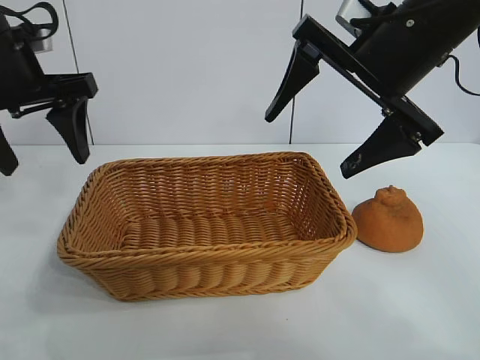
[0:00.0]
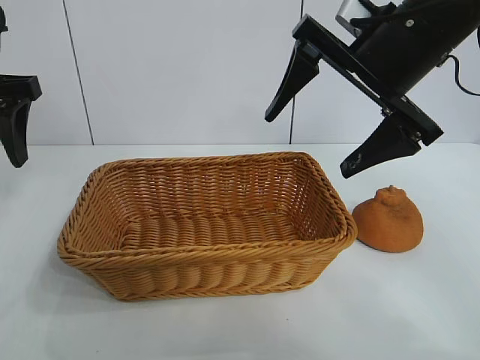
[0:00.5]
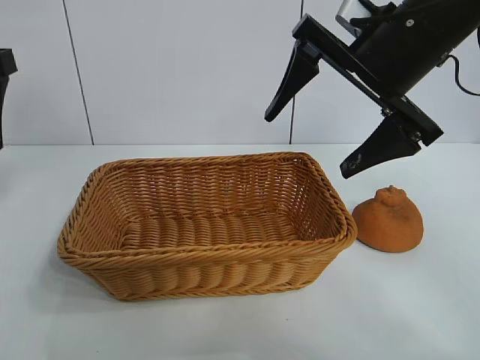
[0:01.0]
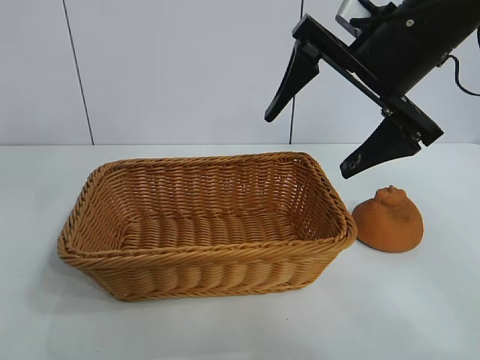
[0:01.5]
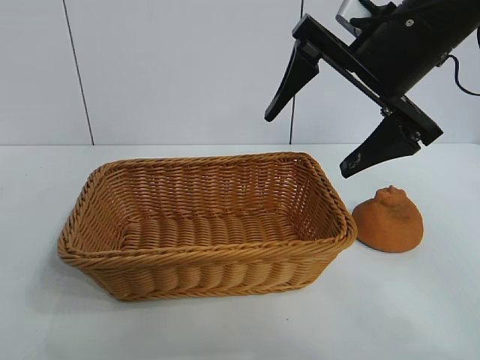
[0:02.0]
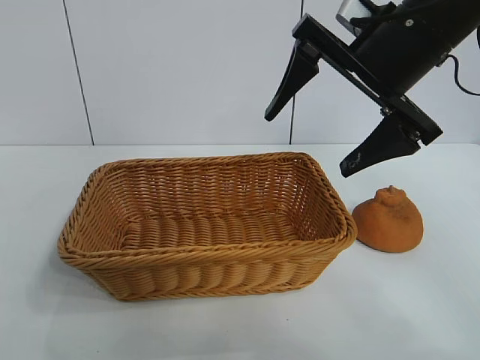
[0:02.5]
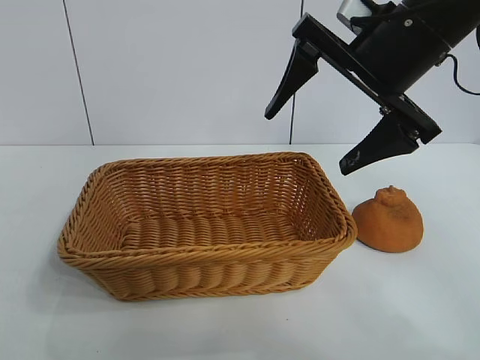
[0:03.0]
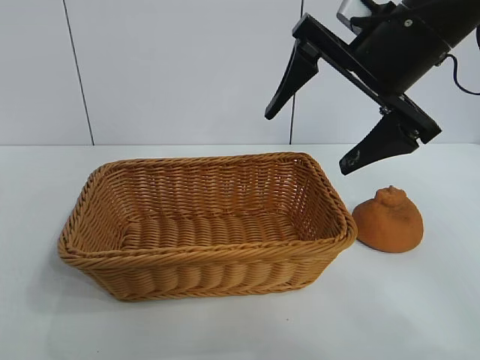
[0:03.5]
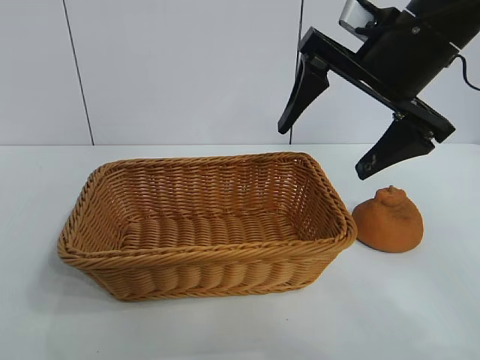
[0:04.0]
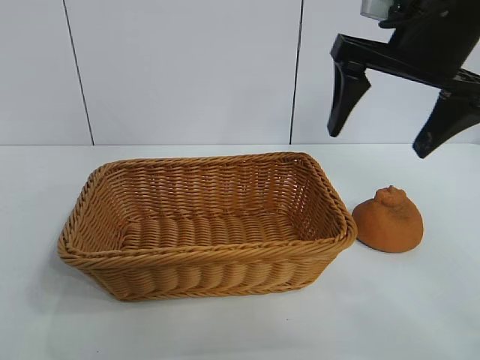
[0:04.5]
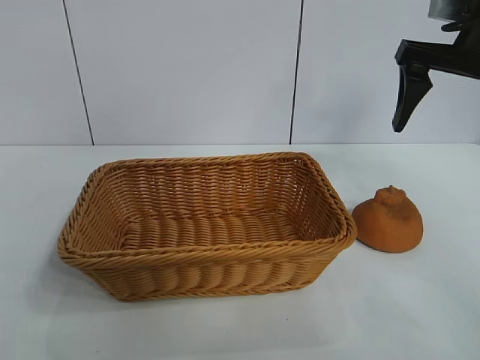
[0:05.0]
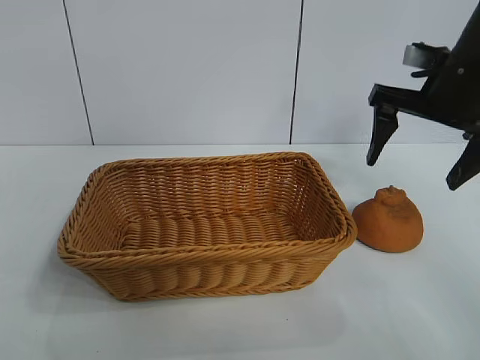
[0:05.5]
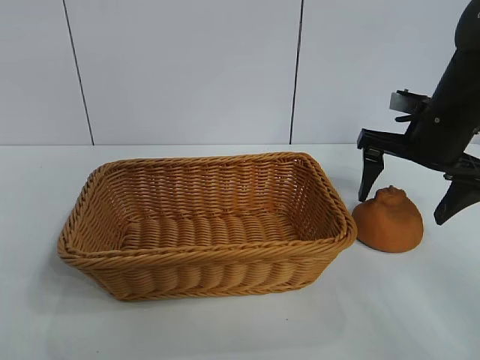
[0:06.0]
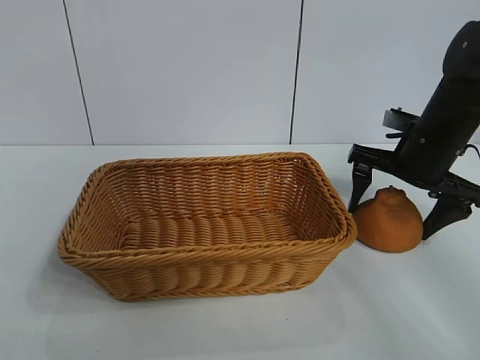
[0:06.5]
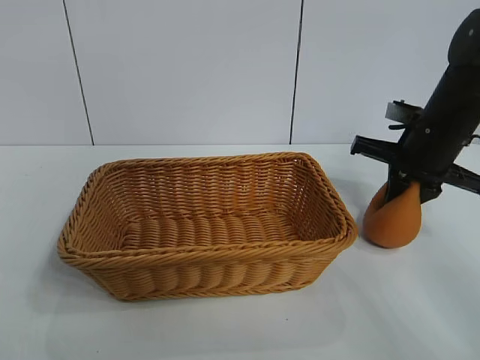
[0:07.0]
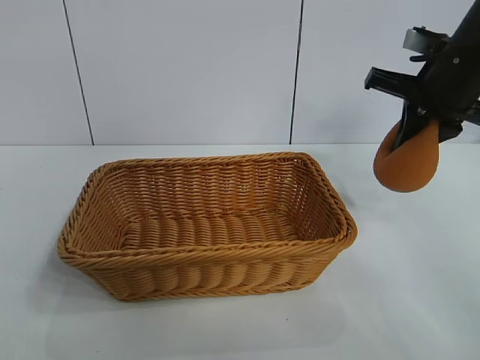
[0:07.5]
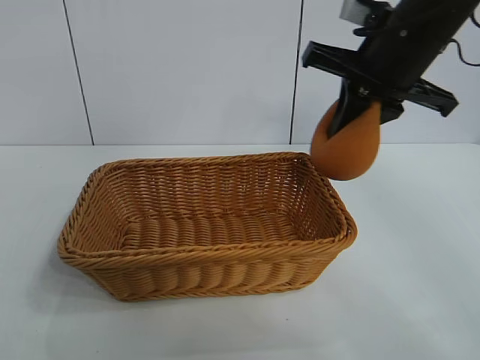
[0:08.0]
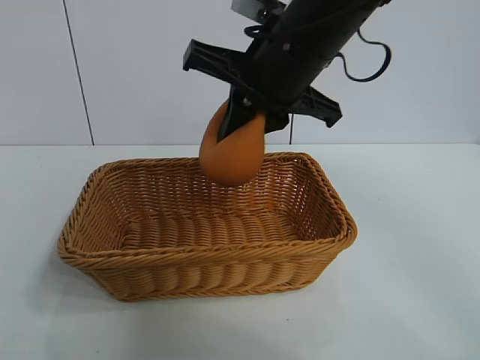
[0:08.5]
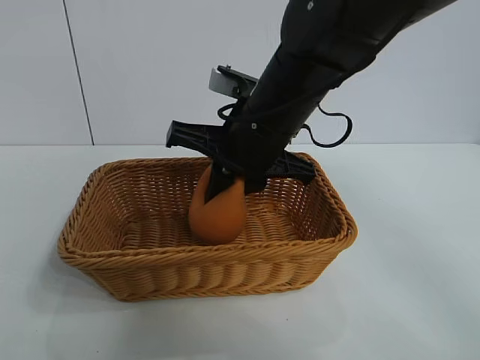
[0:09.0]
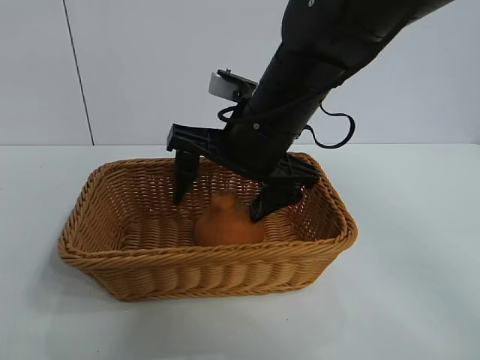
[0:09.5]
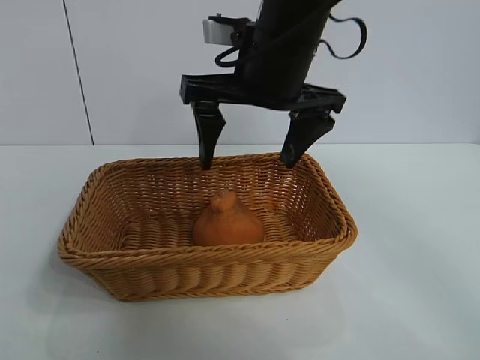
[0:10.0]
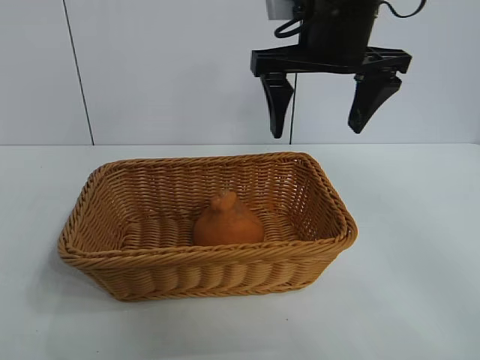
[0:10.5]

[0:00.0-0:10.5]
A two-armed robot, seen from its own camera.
Task of the whole recording: pick up the orange and put it into the basket.
Step, 0:00.0 to 0:07.0: Grasp the orange with right gripper.
Step, 0:07.5 to 0:09.5: Place the orange in the basket with right gripper.
